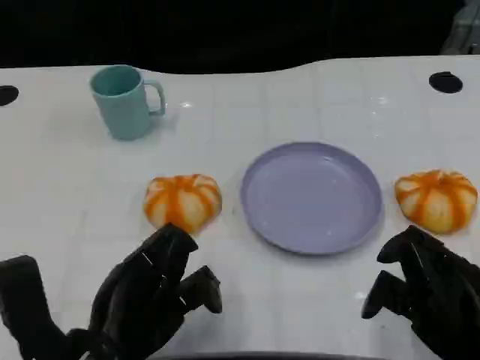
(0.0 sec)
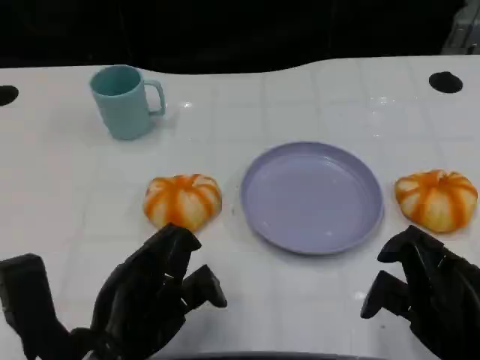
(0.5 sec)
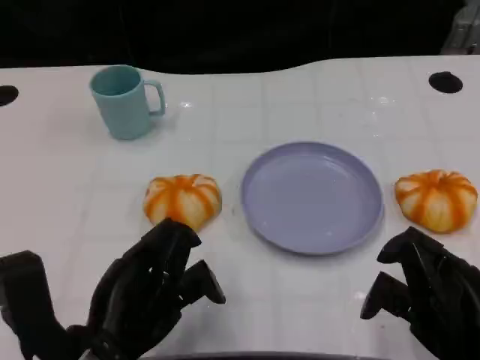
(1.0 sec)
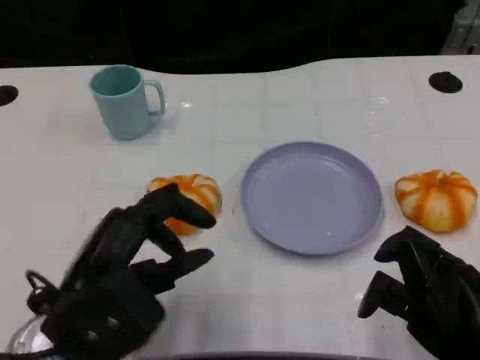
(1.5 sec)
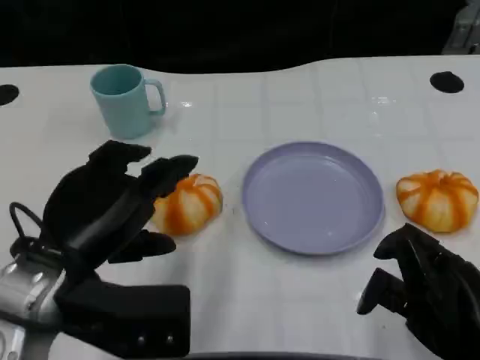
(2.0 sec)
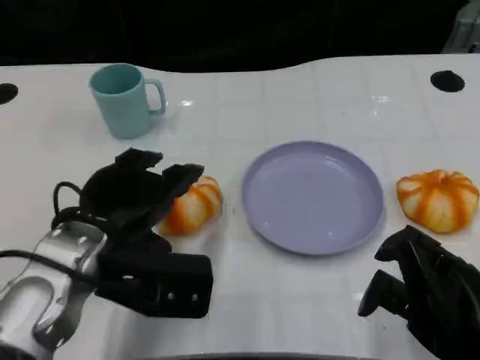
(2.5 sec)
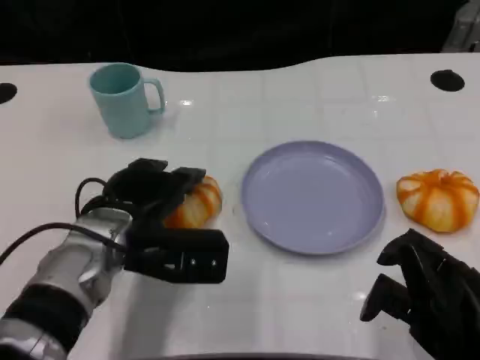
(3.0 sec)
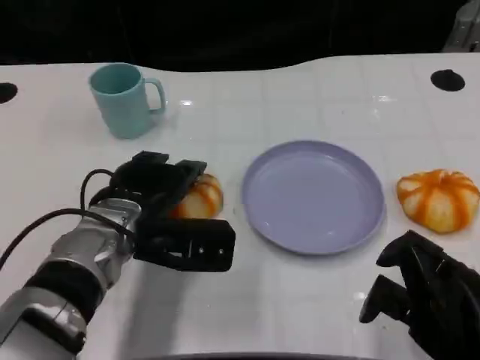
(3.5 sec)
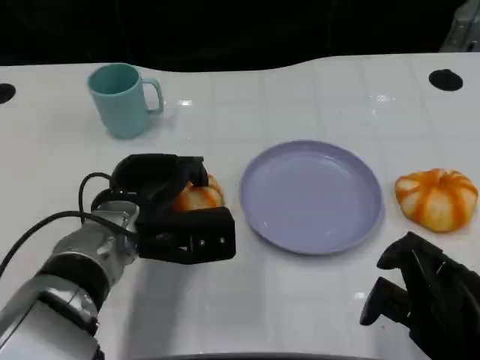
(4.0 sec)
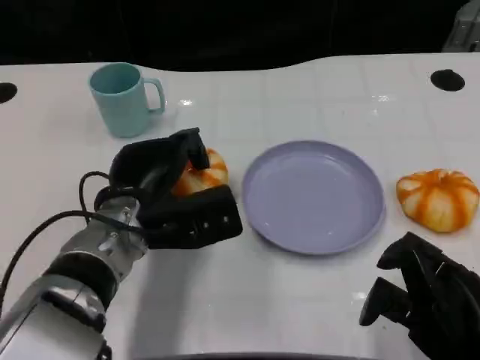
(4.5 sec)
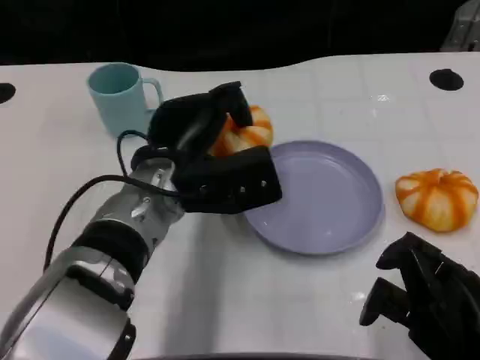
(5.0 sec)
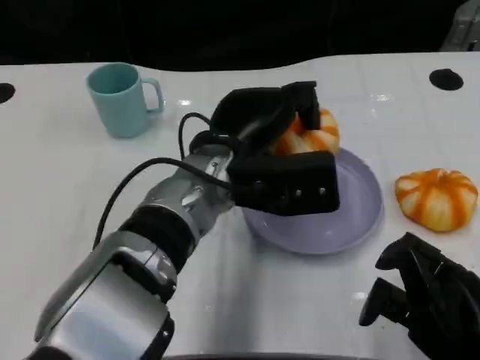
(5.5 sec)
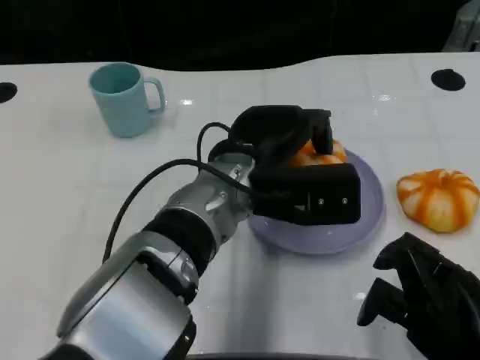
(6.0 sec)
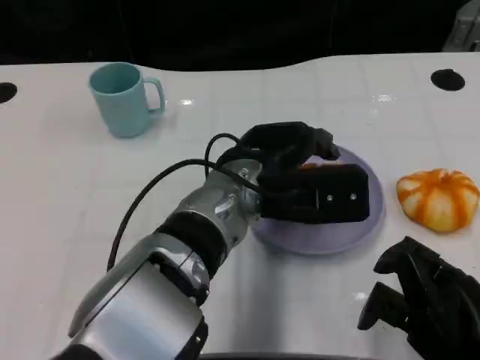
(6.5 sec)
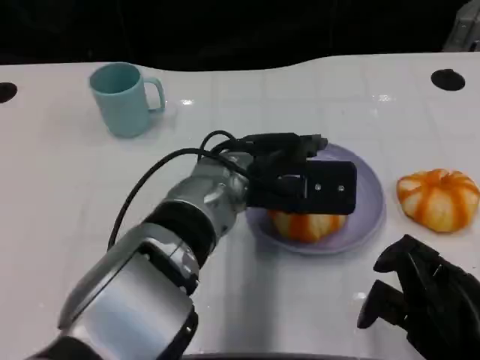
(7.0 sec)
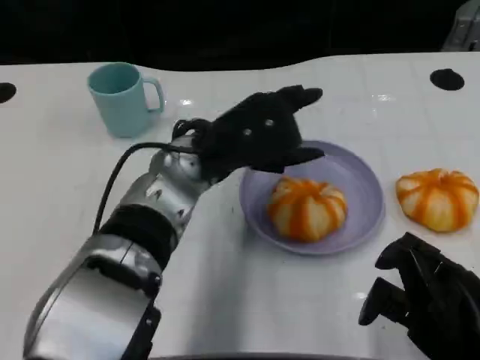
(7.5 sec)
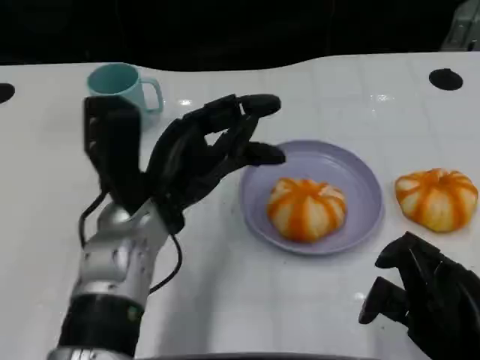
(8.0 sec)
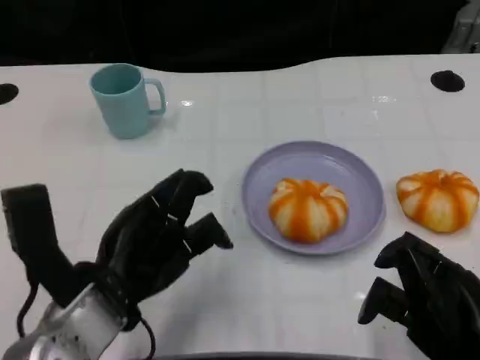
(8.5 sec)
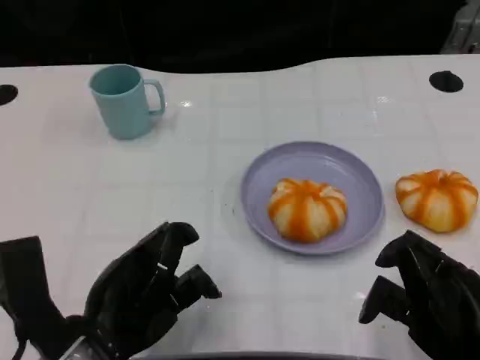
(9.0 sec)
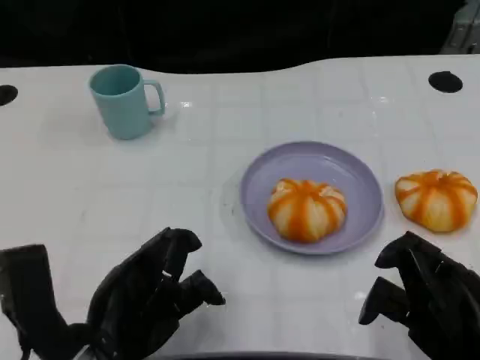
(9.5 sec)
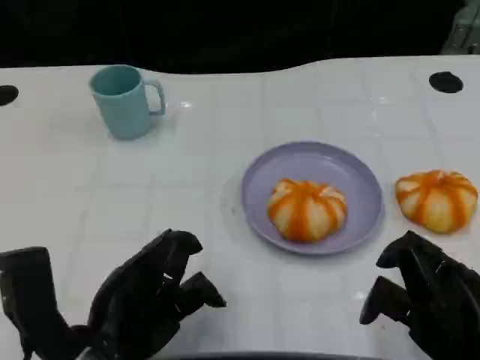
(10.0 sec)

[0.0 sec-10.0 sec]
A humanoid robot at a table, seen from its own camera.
Task of the whole recording: Grasp the bread from the table and place it into the plate.
0.0 sec to 2.0 sec: The left hand heads upward, covering approximately 5 cm.
2.0 sec to 4.0 sec: The left hand travels forward, downward and to the right by about 15 cm.
4.0 sec to 6.0 sec: The left hand goes about 15 cm to the right and upward.
6.0 sec to 8.0 sec: The left hand travels to the left by roughly 10 cm.
8.0 sec to 10.0 sec: The left hand is displaced backward by some 10 cm.

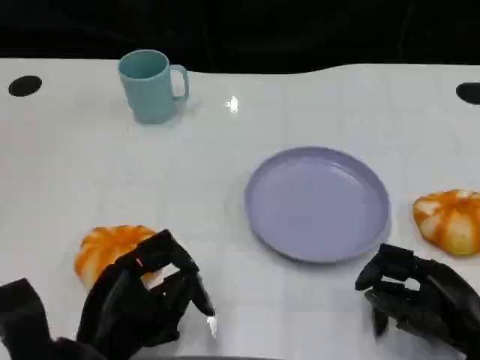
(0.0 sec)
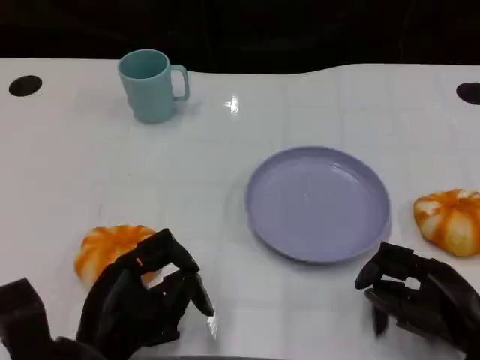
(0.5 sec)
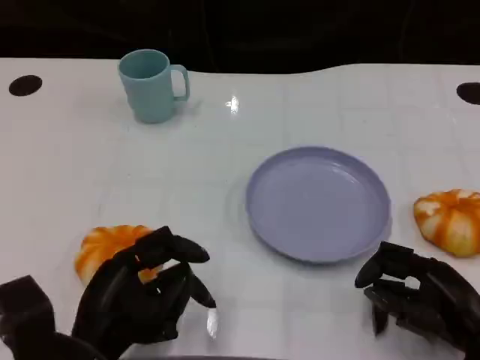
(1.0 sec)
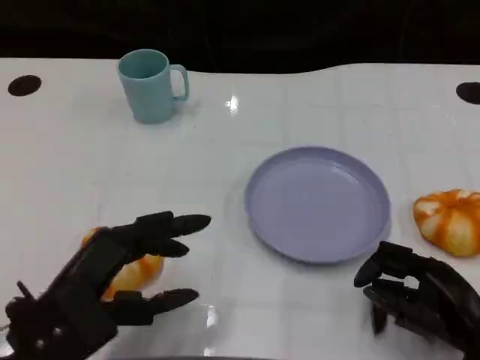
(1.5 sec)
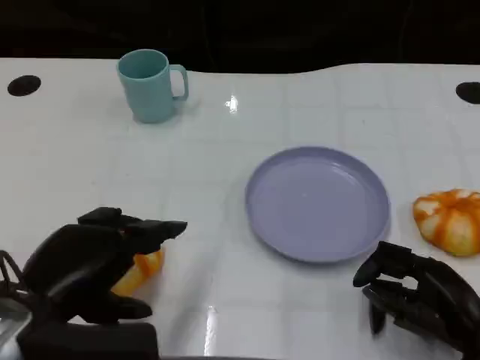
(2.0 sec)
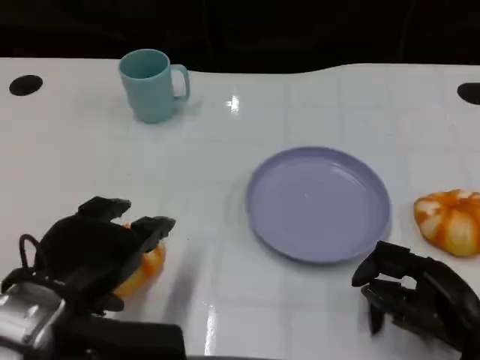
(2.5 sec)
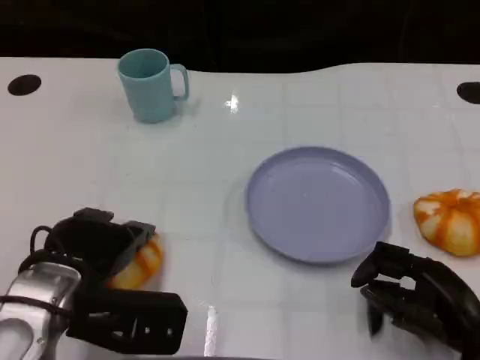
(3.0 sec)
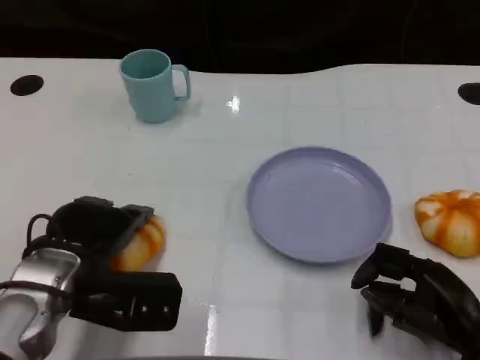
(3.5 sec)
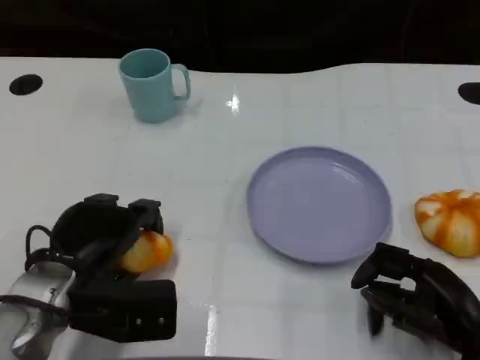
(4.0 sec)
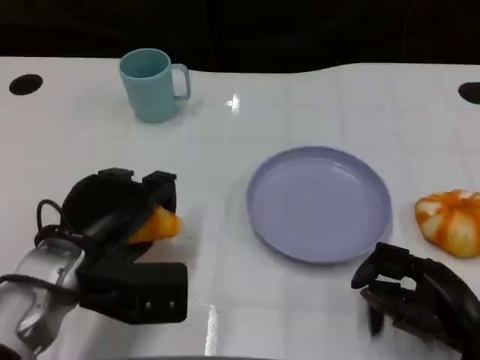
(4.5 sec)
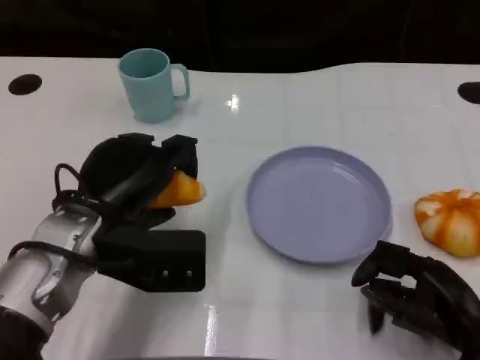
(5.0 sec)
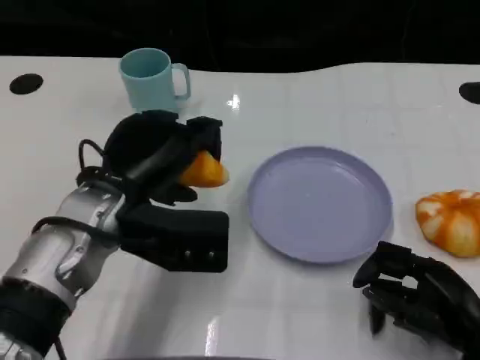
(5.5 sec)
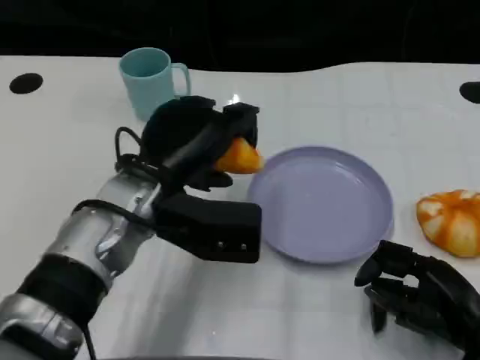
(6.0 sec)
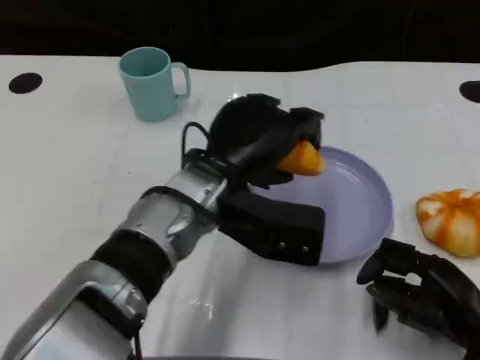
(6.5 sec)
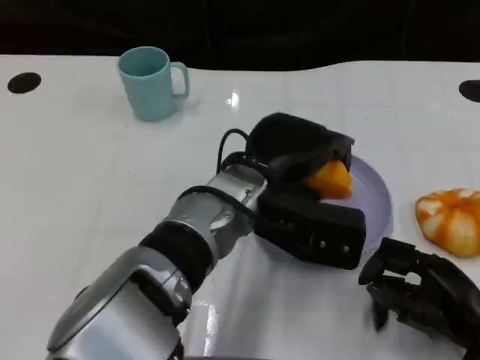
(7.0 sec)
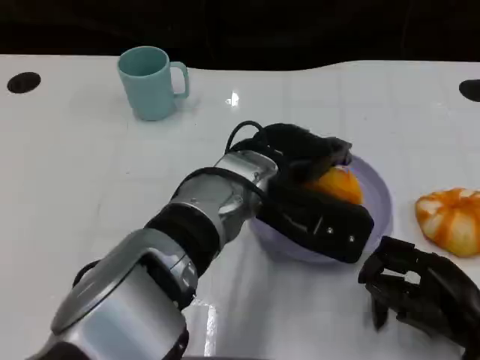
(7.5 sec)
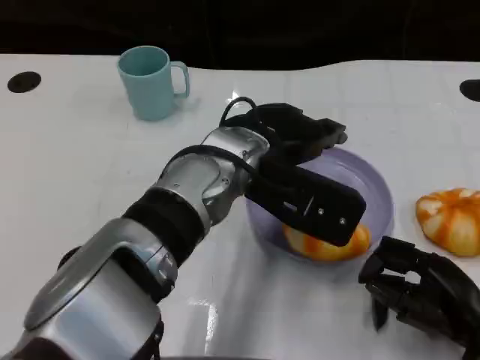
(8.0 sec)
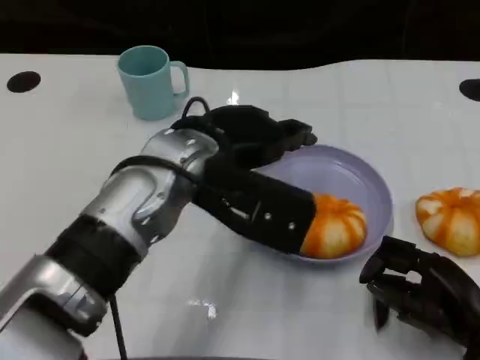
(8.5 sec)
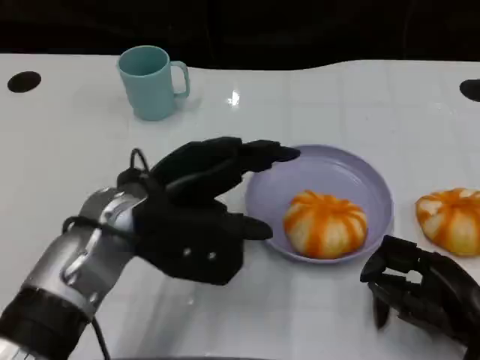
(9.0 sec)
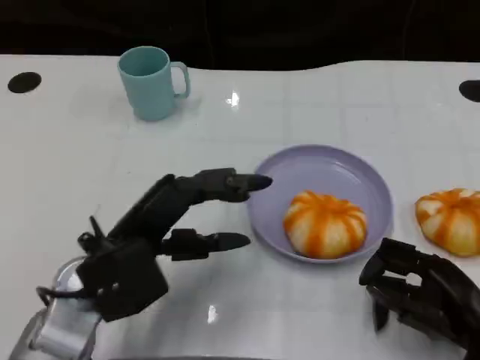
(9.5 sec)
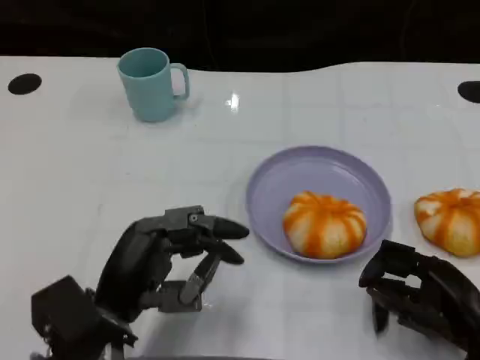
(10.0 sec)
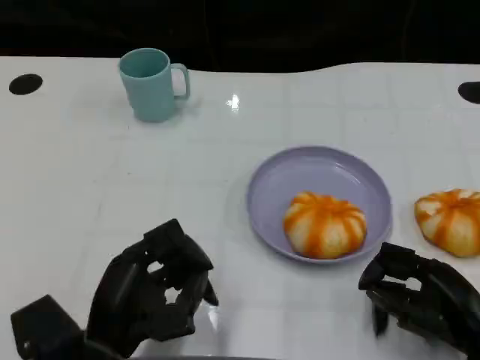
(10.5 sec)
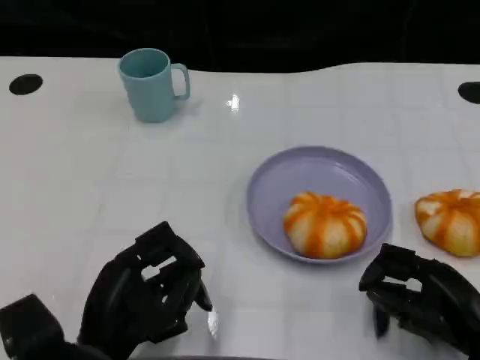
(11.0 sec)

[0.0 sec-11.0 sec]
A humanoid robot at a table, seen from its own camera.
Task of the whole recording: Grasp the bread from the table and place it into the plate.
0.0 sec to 2.0 sec: The left hand moves upward, approximately 10 cm.
2.0 sec to 3.5 sec: The left hand travels forward and downward by approximately 10 cm.
3.5 sec to 5.5 sec: The left hand moves upward and to the right, approximately 10 cm.
5.5 sec to 7.5 sec: The left hand heads to the right, covering some 15 cm.
7.5 sec to 9.0 sec: The left hand goes roughly 10 cm to the left.
9.0 sec to 11.0 sec: The left hand goes roughly 15 cm backward and downward.

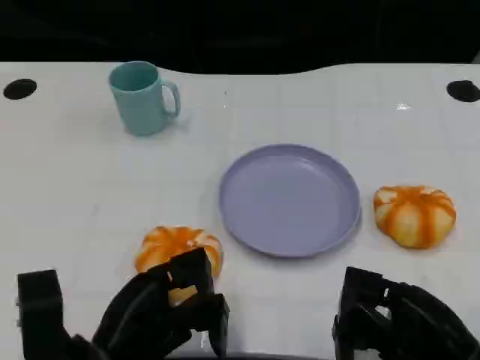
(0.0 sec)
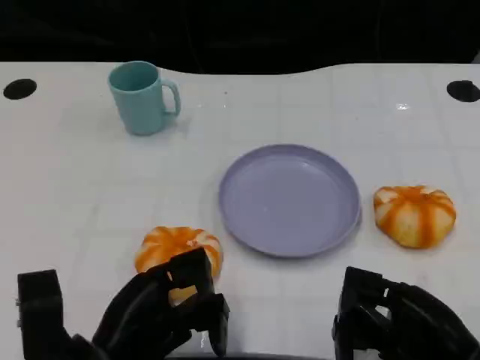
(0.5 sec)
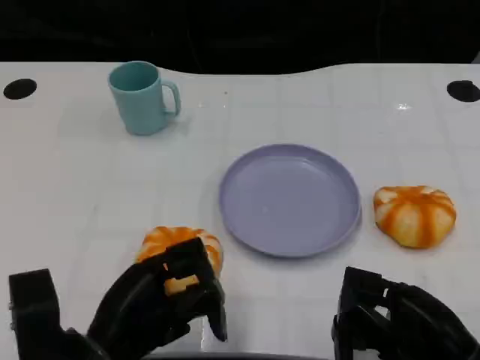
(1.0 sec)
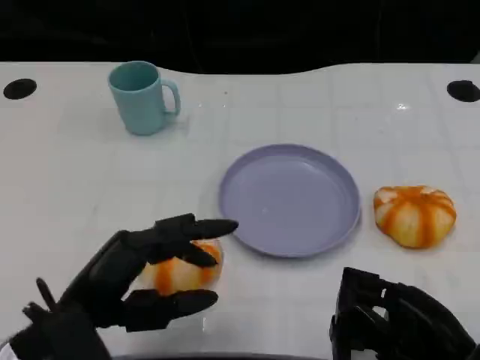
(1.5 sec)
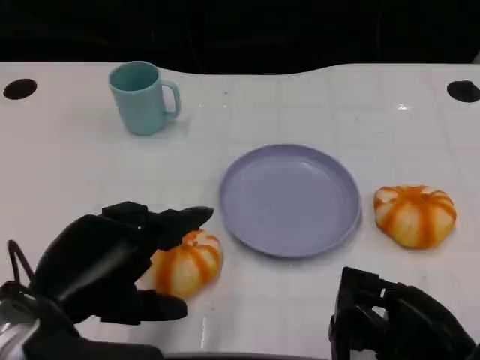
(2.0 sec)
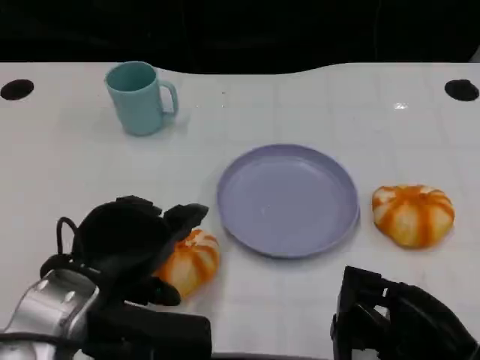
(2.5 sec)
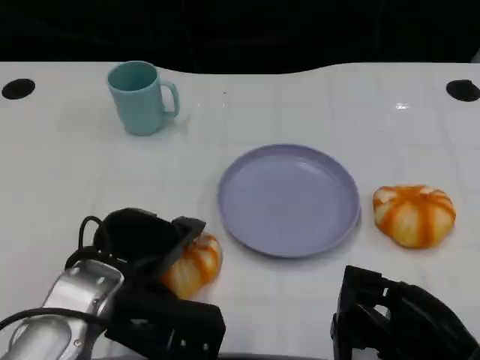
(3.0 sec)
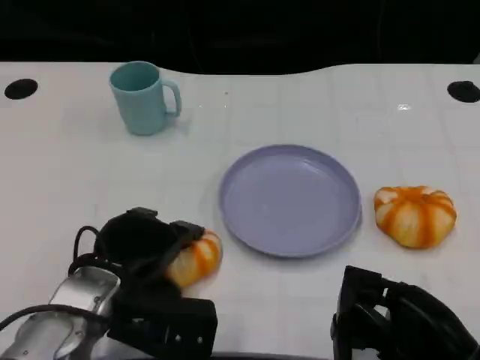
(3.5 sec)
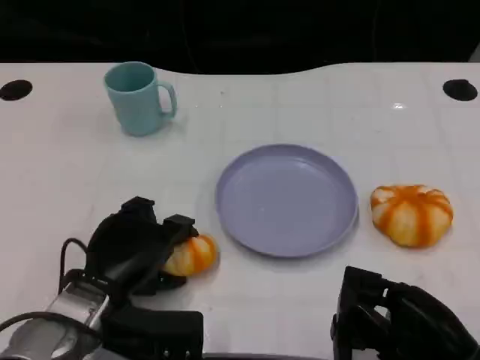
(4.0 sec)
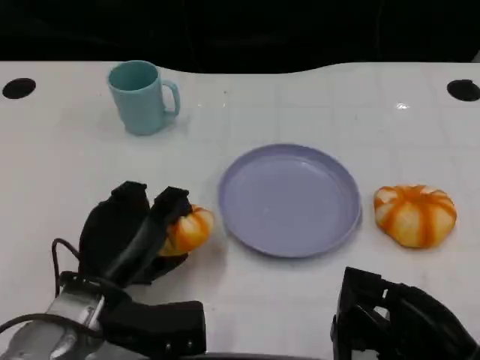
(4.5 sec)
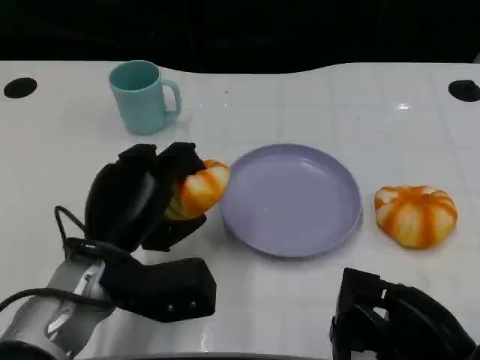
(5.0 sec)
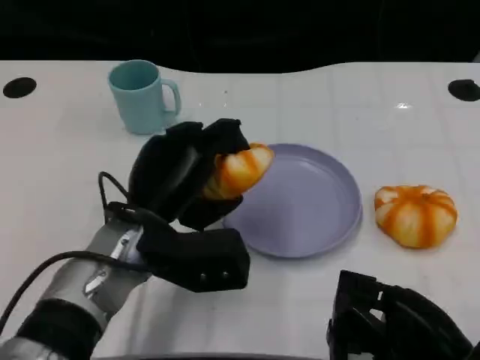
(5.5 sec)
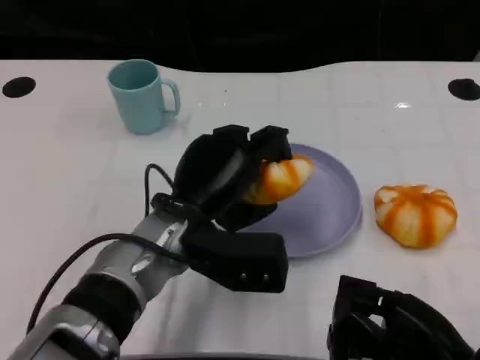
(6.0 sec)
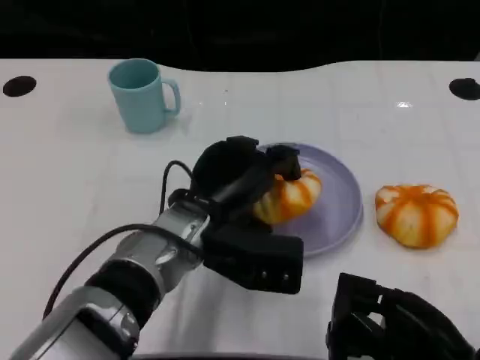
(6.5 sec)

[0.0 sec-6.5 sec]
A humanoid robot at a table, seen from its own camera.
Task of the whole recording: Grasp the bread from the table and place it into the plate.
0.0 sec to 2.0 sec: The left hand travels upward by about 10 cm.
2.0 sec to 4.5 sec: The left hand heads downward and forward, covering some 10 cm.
4.5 sec to 6.5 sec: The left hand heads to the right, covering about 10 cm.
